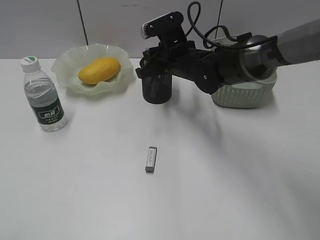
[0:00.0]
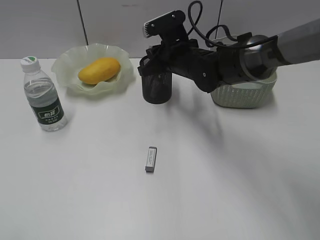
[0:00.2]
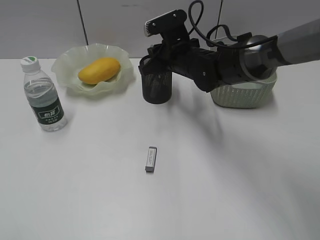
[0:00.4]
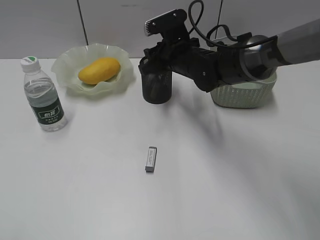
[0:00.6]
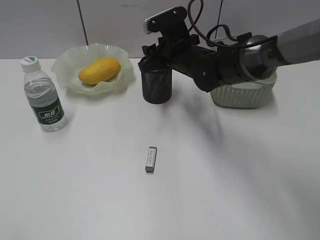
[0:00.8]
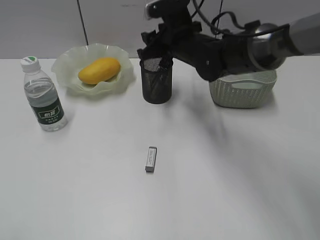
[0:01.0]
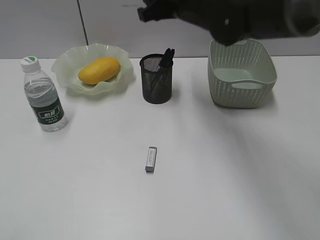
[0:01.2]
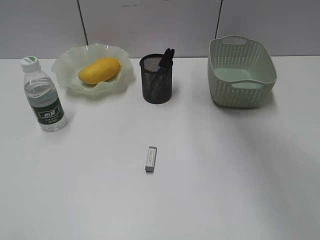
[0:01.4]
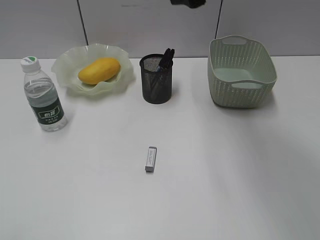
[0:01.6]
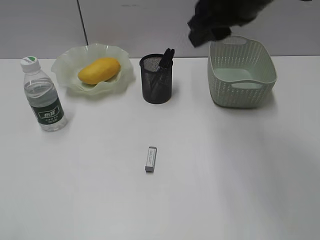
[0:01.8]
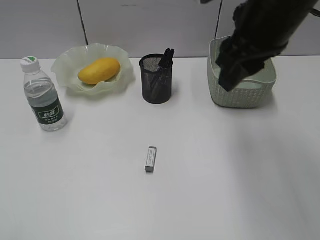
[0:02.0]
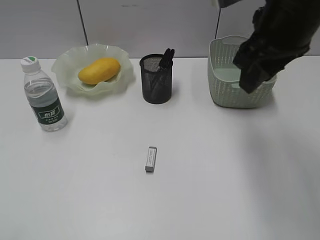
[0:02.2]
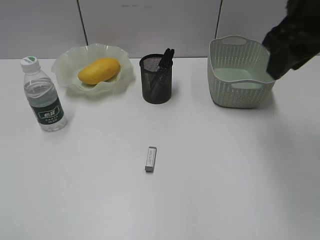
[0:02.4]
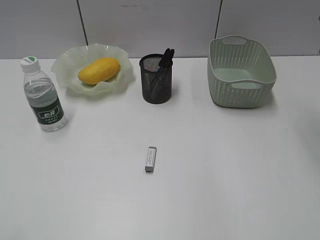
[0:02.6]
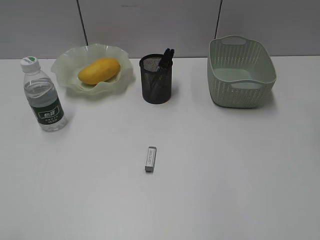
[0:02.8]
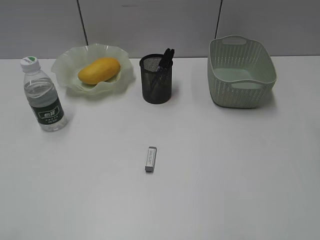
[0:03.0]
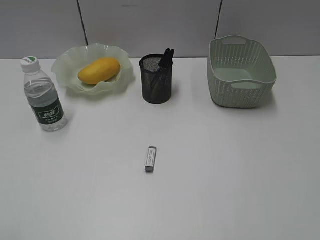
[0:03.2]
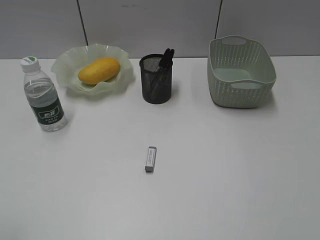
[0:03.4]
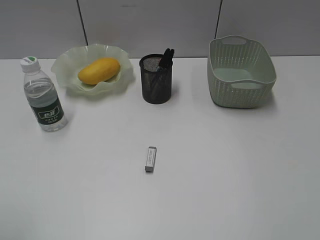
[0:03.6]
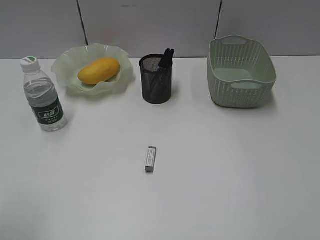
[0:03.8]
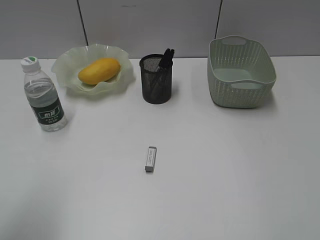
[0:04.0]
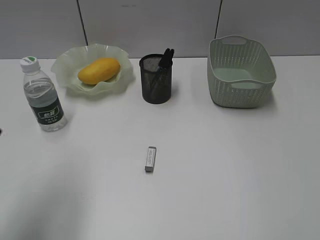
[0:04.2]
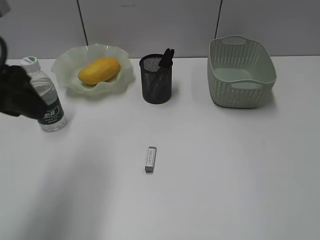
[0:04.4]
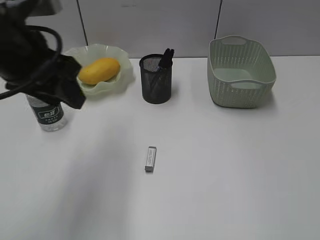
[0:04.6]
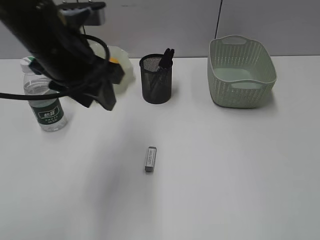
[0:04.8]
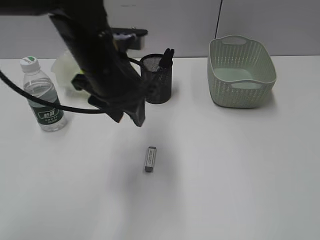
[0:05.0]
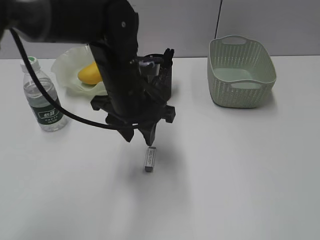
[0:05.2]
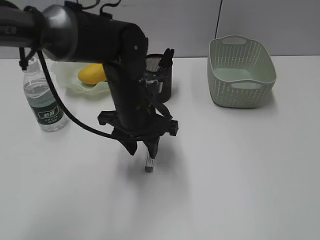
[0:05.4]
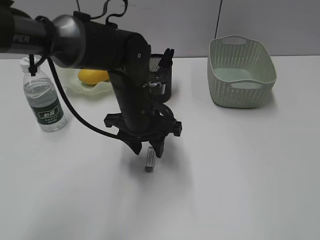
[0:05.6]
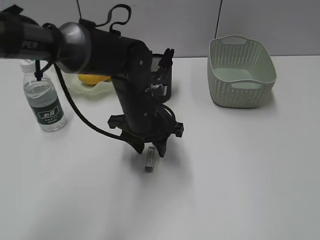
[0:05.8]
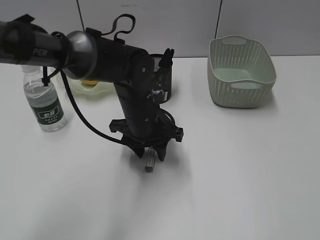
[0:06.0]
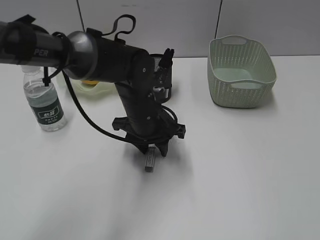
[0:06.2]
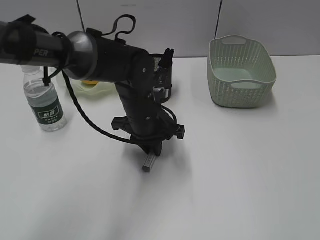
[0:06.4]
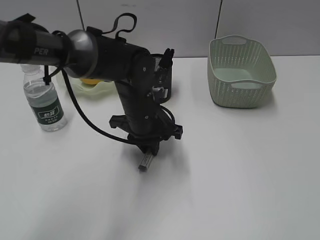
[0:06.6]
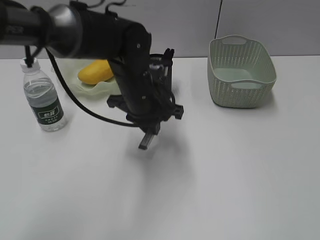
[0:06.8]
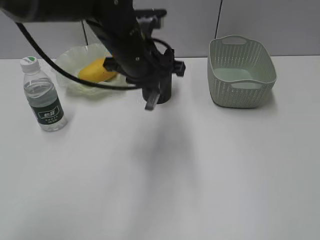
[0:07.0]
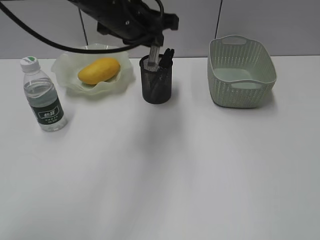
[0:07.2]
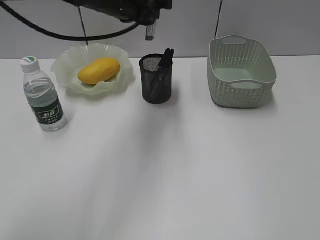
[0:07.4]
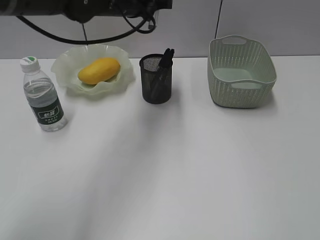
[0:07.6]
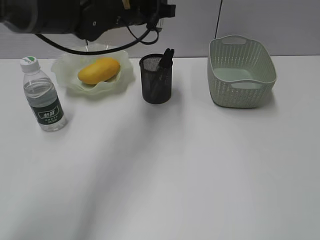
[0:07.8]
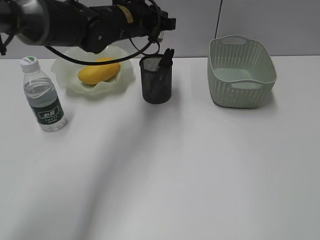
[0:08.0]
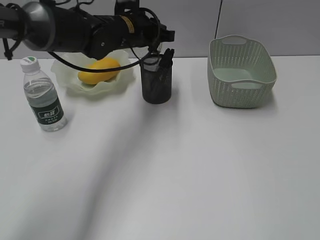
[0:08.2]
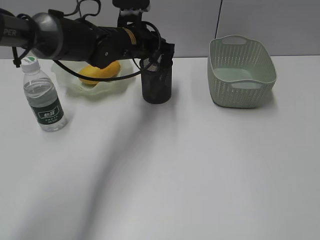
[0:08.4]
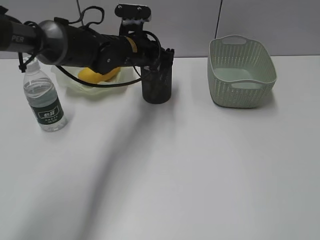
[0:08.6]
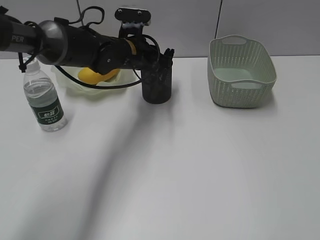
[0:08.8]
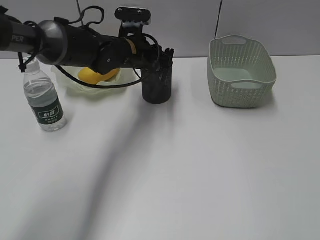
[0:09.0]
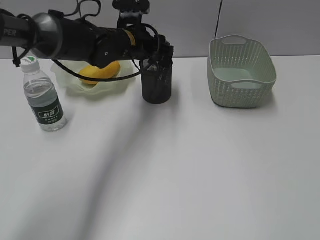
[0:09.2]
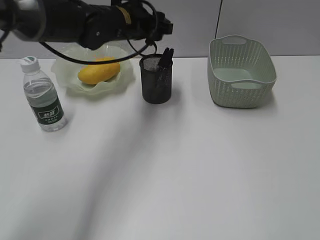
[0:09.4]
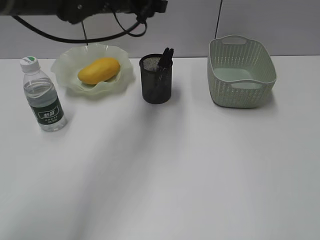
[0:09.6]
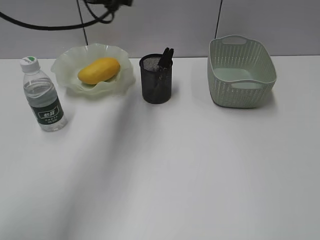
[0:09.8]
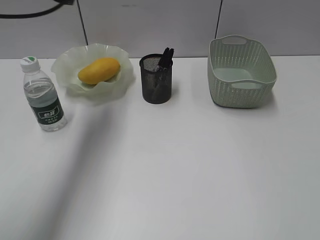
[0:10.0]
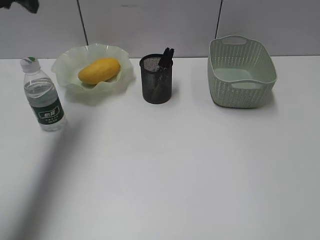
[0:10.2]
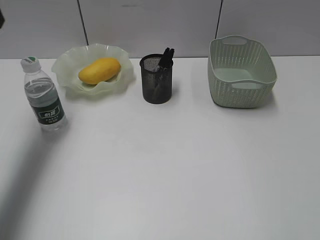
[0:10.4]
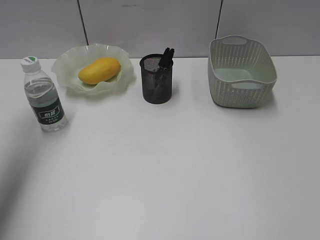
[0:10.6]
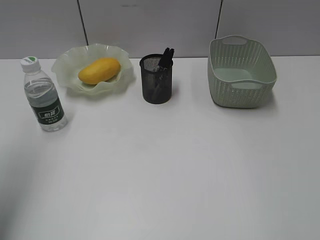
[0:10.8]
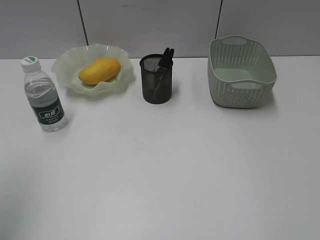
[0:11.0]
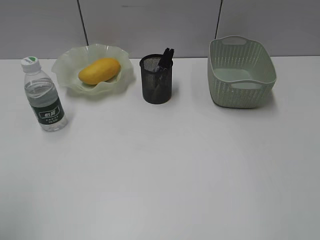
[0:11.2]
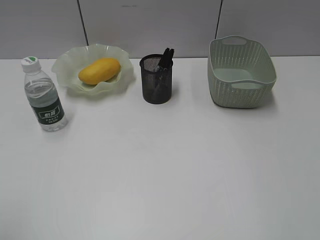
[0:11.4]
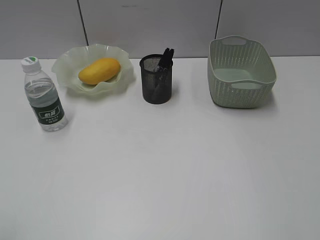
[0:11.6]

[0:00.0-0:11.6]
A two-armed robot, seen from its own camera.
Step, 0:01.2 to 0:06.4: Grasp the eraser with left gripper.
Step, 0:06.6 to 0:09.2: Place the eraser in pen holder with left gripper.
0:00.0 to 0:01.4: The right gripper moves upward, approximately 20 cm, and opens its fingers.
0:01.4 to 0:02.8: The right gripper heads to the right and backward, covering some 25 cm.
0:02.8 to 0:04.4: The left gripper moves forward and to the right, about 25 cm.
0:04.4 to 0:05.8: The left gripper is displaced downward, to the right and forward by approximately 25 cm.
0:05.8 to 0:07.2: The left gripper goes some 15 cm upward, and closes its fingers.
0:07.2 to 0:08.8: The left gripper heads downward and forward, covering roughly 15 cm.
0:08.8 to 0:10.2: The left gripper travels to the left and upward by approximately 30 cm, and opens its fingers.
0:10.2 to 0:11.6: The left gripper goes about 35 cm backward.

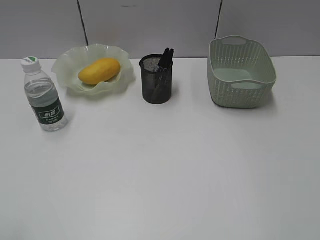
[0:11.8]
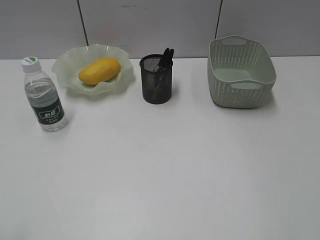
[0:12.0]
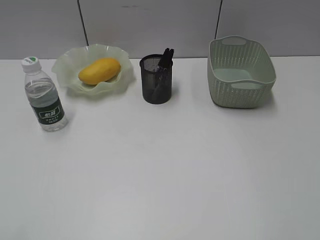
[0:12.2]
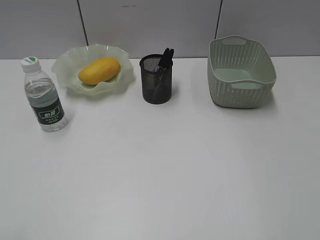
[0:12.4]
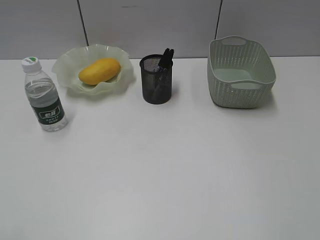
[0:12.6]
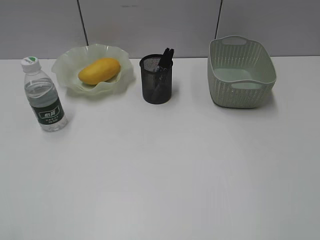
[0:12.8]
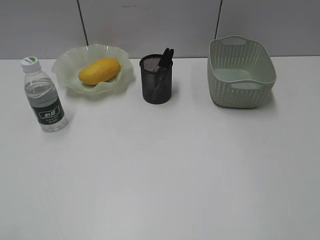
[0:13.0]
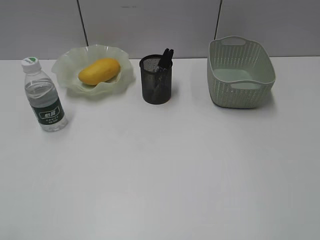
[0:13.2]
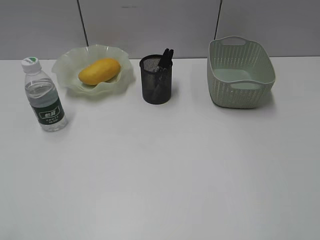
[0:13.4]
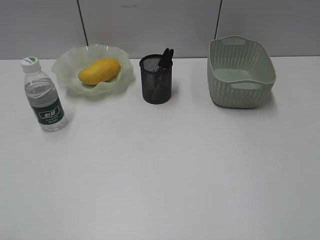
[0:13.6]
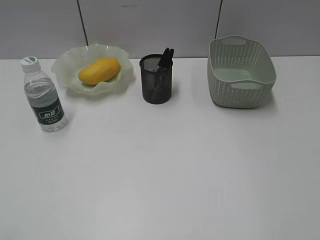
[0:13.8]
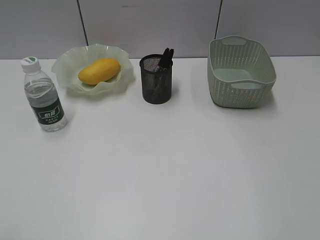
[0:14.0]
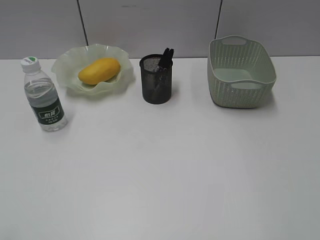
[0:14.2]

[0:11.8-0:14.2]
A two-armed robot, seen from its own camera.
0:13.0 to 0:14.2: The two grippers keep their place.

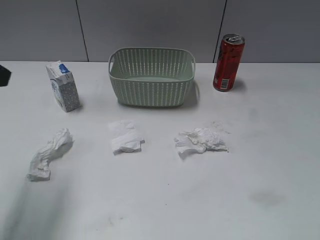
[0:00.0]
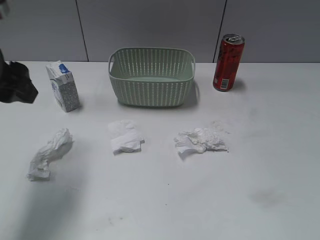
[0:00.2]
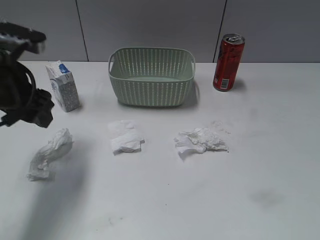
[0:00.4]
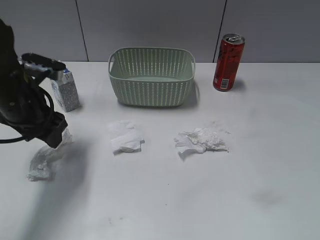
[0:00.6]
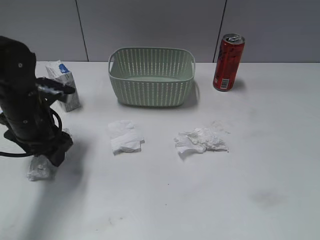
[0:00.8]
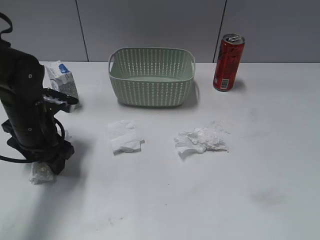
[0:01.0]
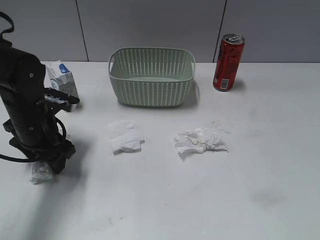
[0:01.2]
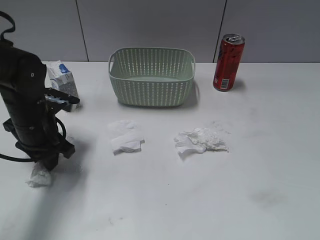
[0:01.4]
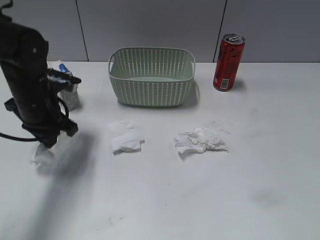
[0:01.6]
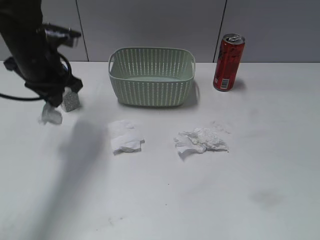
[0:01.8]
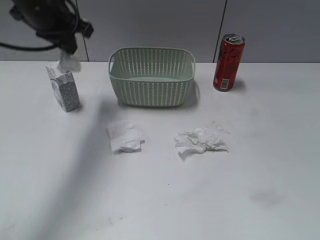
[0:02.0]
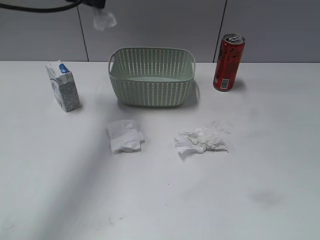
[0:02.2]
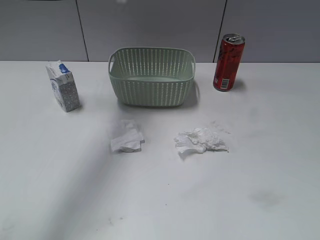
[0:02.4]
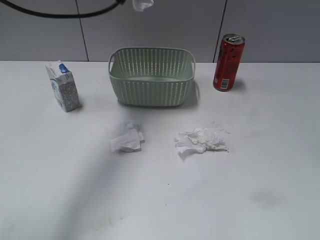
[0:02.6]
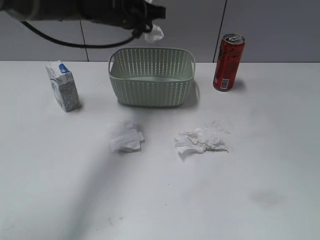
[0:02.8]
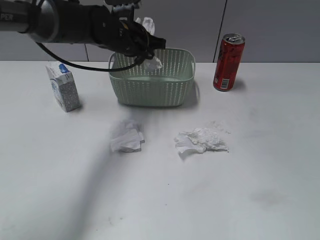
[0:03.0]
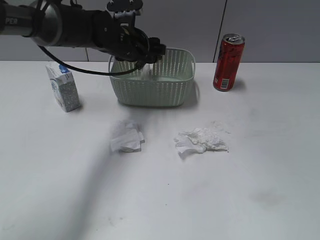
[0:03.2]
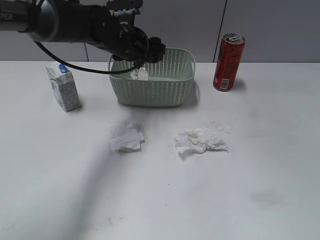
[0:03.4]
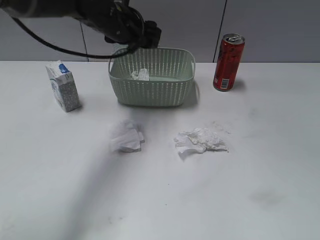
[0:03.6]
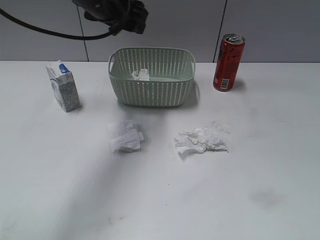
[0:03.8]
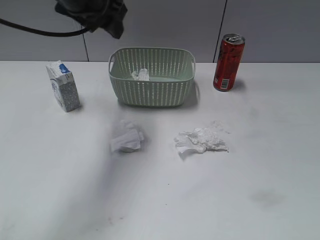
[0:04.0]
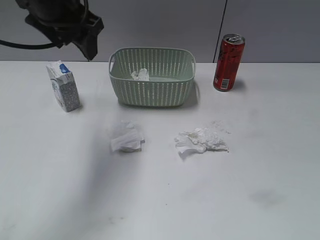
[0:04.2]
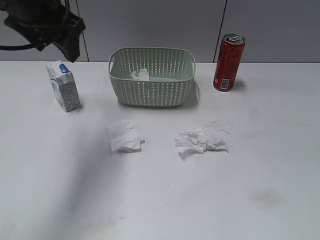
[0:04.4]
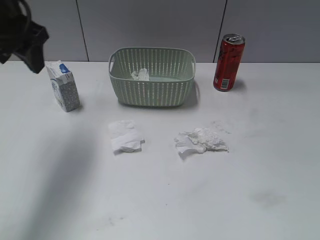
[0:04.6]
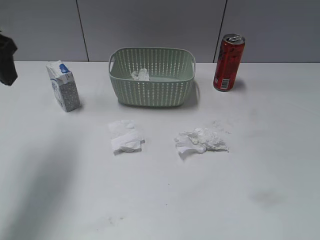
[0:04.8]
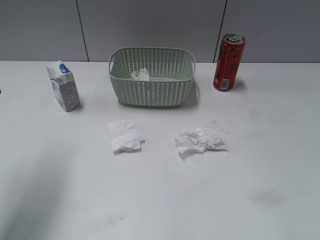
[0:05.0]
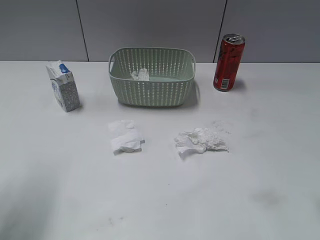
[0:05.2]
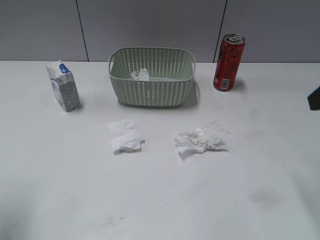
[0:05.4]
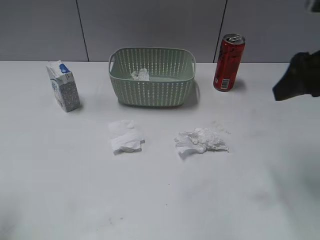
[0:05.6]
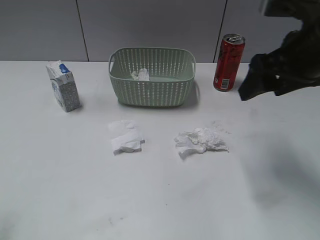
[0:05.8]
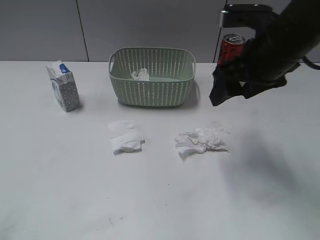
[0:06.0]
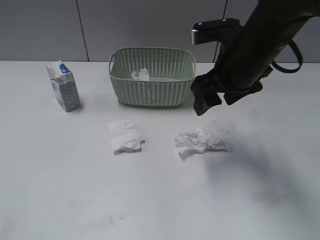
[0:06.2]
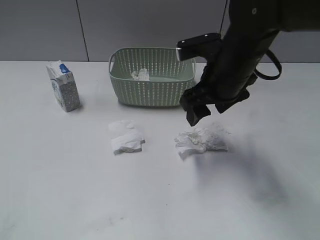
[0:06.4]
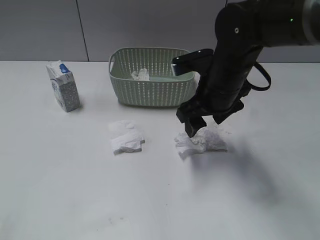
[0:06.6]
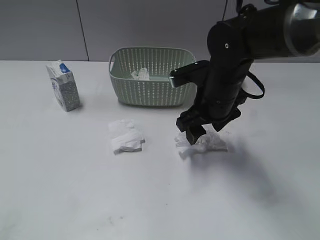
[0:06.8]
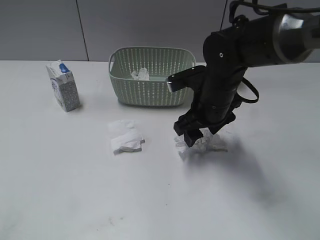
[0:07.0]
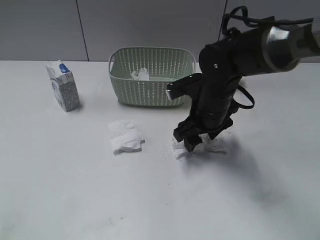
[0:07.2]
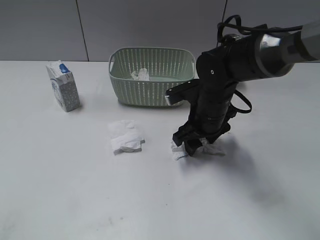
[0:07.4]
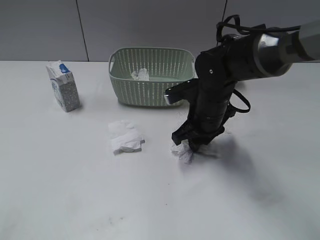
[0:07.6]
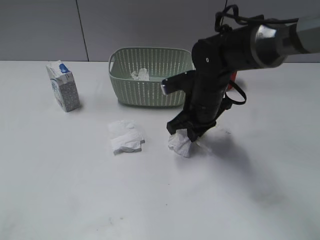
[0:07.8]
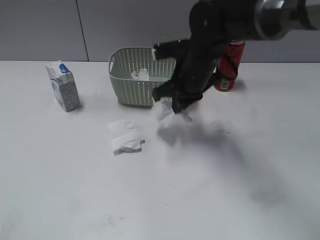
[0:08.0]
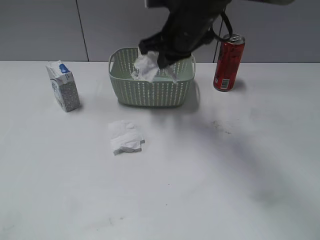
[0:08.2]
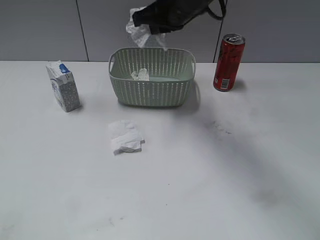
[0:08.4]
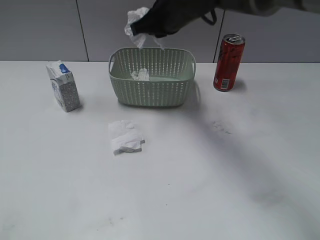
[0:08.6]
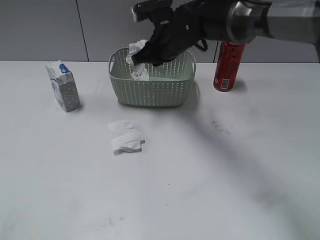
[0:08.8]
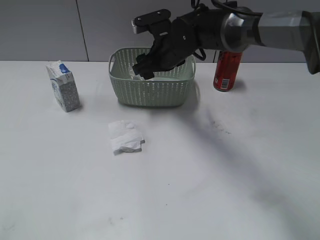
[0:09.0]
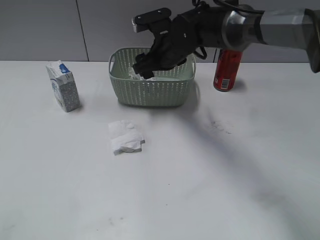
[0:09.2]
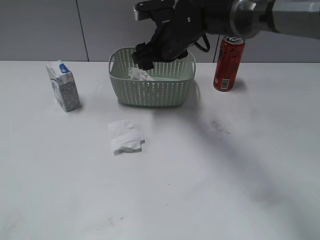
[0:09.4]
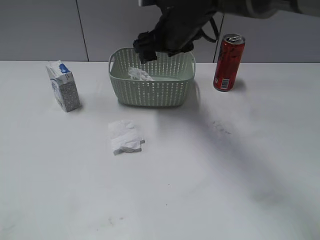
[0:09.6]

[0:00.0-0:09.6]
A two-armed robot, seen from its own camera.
Step, 0:01.8 to 0:03.4: Place the waste paper in the basket with left gripper.
Step, 0:03.6 to 0:07.8: Grasp the waste paper with right gripper.
Step, 0:08.0 to 0:09.2: Place the waste paper in the basket with right gripper.
0:00.0 to 0:01.6: The left gripper goes about 20 cm downward and forward, and closes.
0:01.6 to 0:03.2: The left gripper travels to the right and forward by about 15 cm, moves approximately 15 cm upward and comes back, and opens up.
0:03.2 to 0:04.8: The left gripper is displaced to the left, backward and upward by some 30 cm. The right gripper shifts some 5 cm forward.
0:04.8 to 0:06.4: The left gripper is displaced backward by roughly 25 cm. Meanwhile the right gripper goes some 35 cm forward, to the left and downward.
0:06.4 to 0:08.0: The right gripper goes some 5 cm forward, moves roughly 10 cm downward and comes back, and closes up.
0:08.0 to 0:09.6: The right gripper goes up and down, approximately 10 cm each way, reversing 2 times, and opens its fingers.
